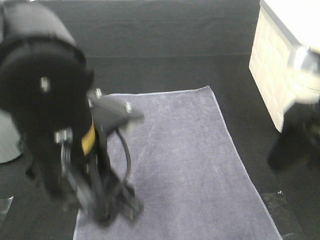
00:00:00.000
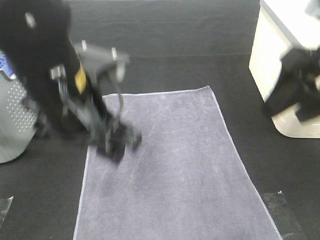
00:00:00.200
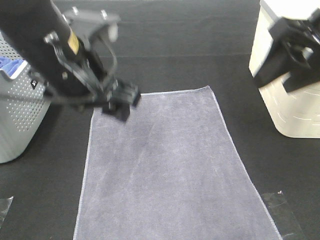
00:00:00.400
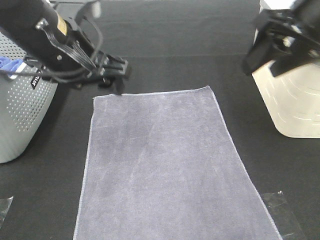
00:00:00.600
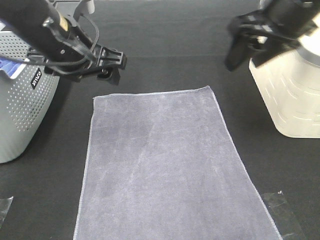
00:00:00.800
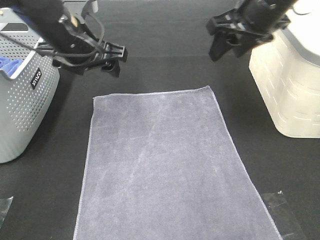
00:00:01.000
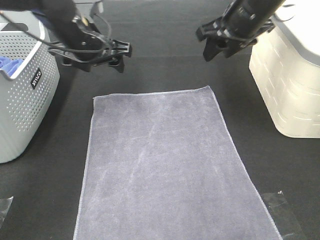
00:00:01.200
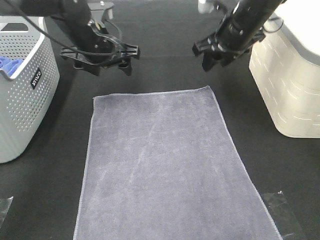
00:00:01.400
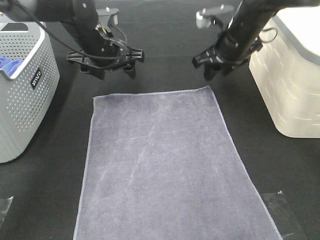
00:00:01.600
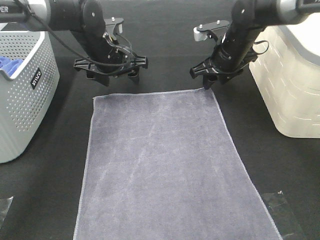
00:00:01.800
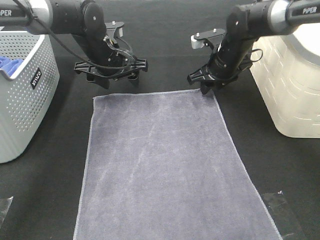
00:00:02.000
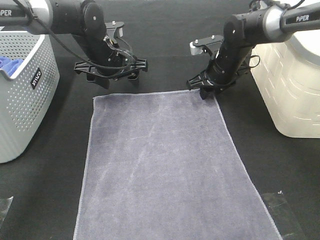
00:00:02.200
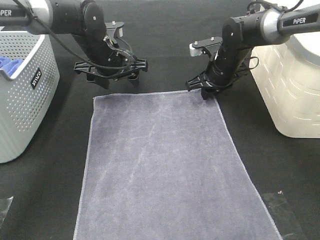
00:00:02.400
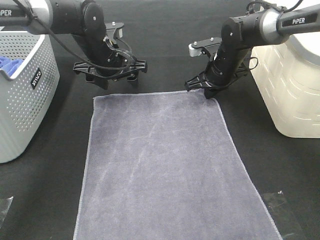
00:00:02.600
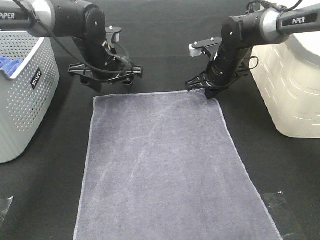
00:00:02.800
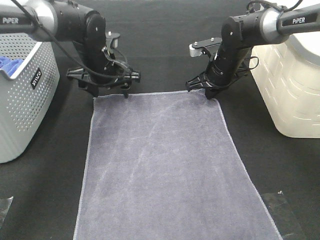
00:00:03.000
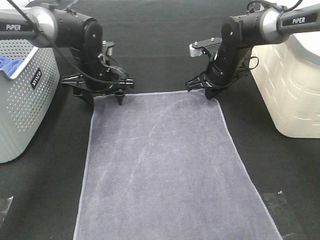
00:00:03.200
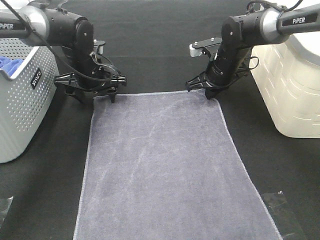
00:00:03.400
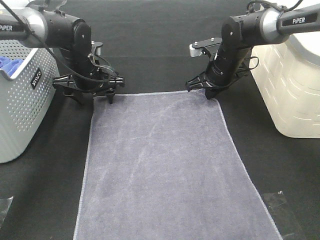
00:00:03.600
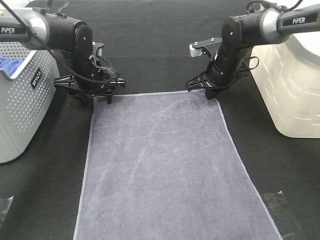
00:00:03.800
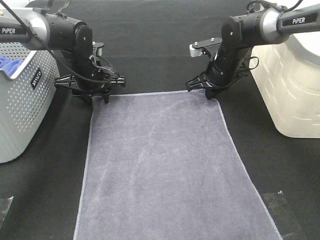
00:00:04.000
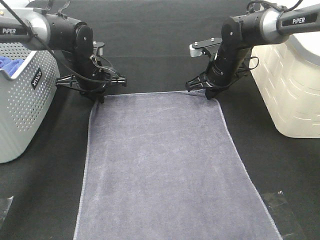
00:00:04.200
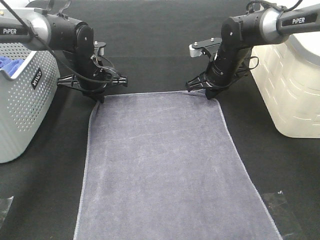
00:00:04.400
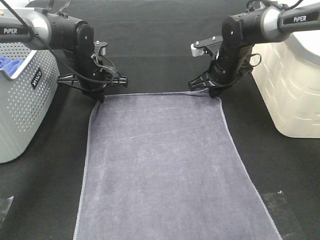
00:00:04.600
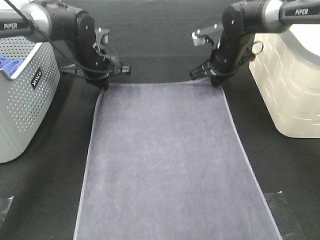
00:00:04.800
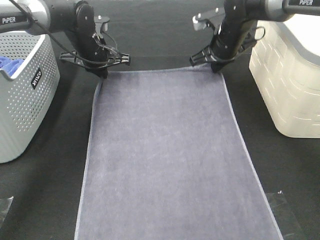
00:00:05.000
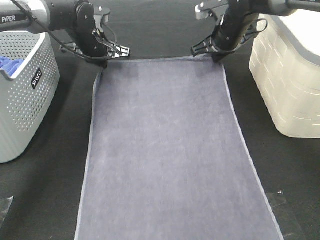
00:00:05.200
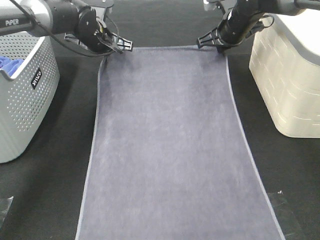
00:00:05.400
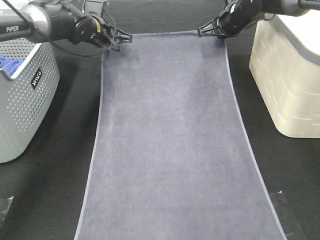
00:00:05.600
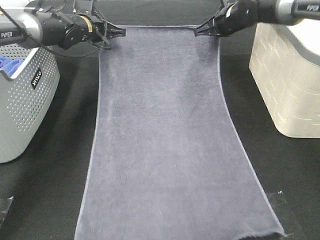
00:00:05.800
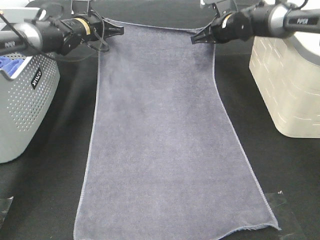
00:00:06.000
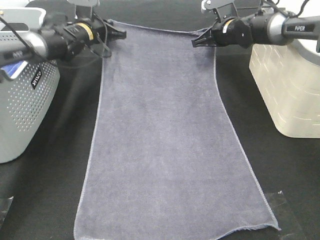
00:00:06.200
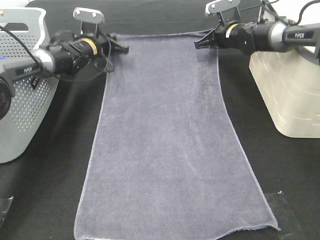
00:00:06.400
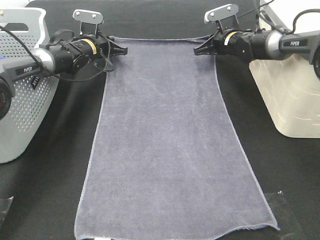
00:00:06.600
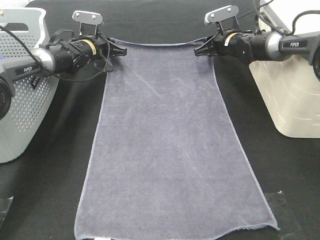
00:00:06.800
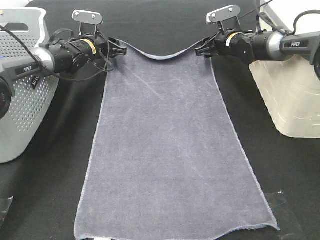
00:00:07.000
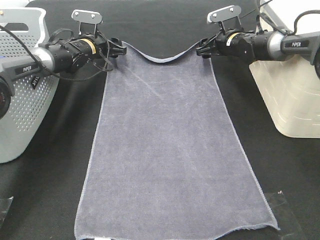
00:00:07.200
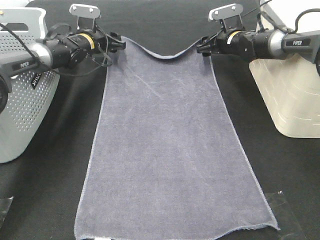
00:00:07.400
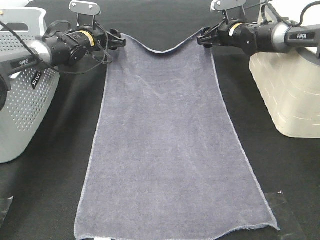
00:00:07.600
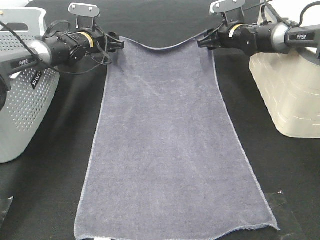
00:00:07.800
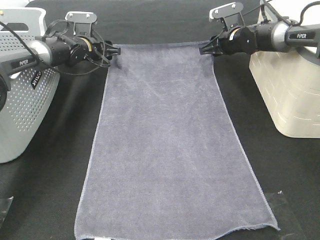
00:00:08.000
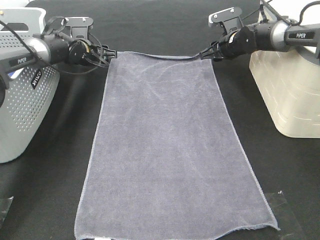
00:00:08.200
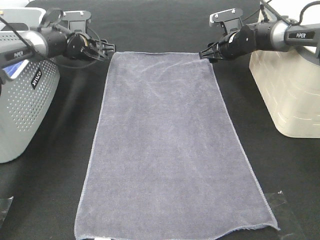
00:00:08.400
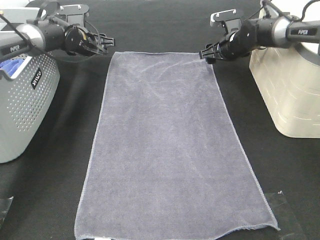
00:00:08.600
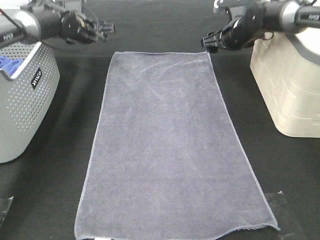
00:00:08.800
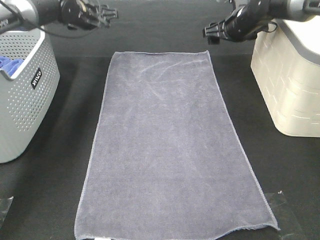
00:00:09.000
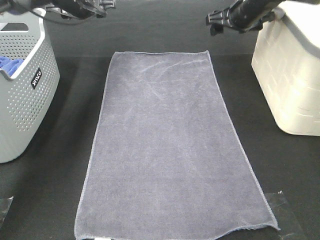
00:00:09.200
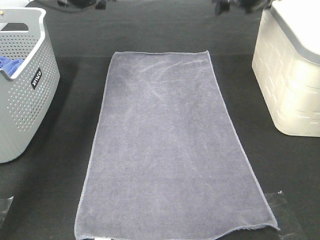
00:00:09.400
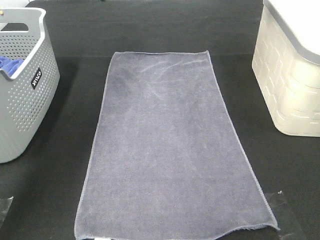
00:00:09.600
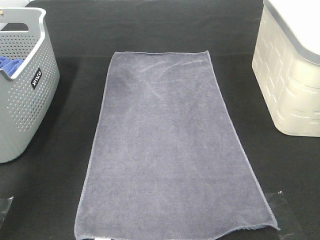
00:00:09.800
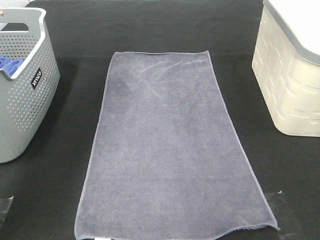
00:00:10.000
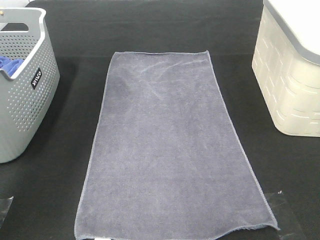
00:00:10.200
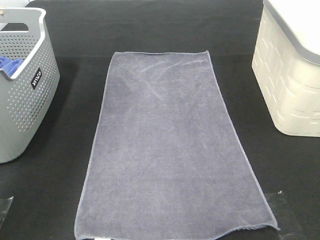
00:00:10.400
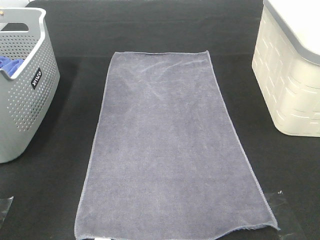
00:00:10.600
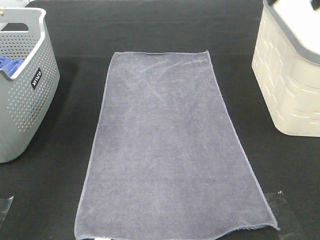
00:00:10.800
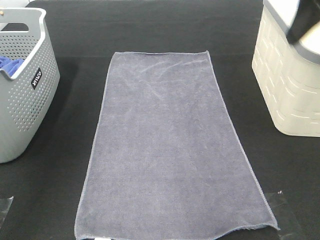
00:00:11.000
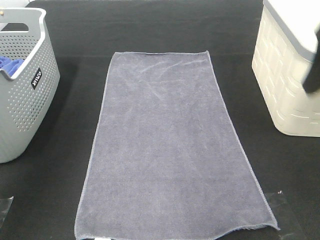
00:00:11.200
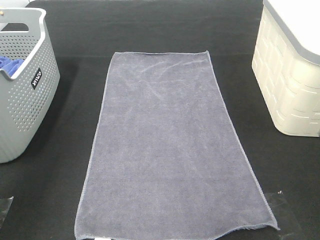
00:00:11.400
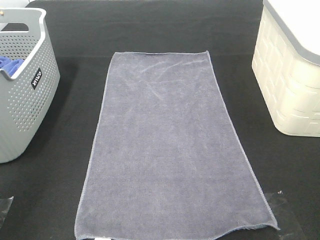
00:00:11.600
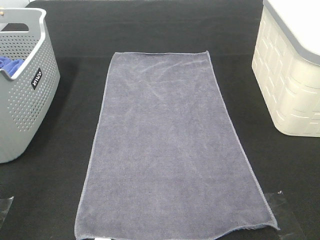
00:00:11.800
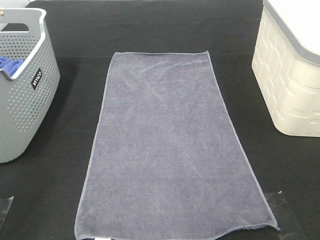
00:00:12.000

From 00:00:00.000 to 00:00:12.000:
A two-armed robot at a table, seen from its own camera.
Task of the whole recording: Remove the towel and place it.
From 00:00:00.000 to 00:00:01.600: The grippers both shift forward by some 25 cm.
From 00:00:01.600 to 00:00:03.000: The right gripper shifts approximately 5 cm downward, and closes up.
From 00:00:03.000 to 00:00:04.400: The left gripper closes up.
From 00:00:04.400 to 00:00:06.000: The grippers both shift forward by some 10 cm.
From 00:00:06.000 to 00:00:07.600: The left gripper opens. The right gripper opens.
From 00:00:07.600 to 00:00:09.000: The right gripper moves upward, roughly 5 cm. Meanwhile the left gripper moves upward, roughly 10 cm.
From 00:00:09.000 to 00:00:10.400: Both grippers move upward and backward, some 25 cm.
From 00:00:10.400 to 00:00:12.000: The left gripper is displaced backward and downward by about 35 cm. The right gripper is displaced backward by roughly 30 cm.

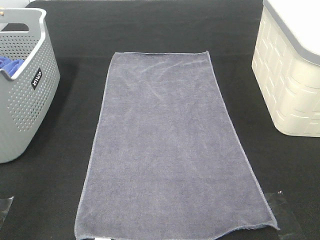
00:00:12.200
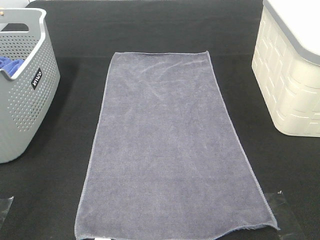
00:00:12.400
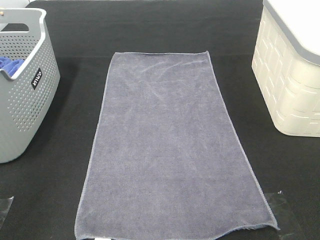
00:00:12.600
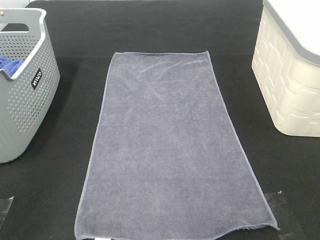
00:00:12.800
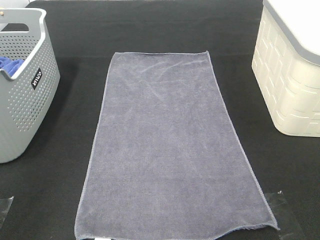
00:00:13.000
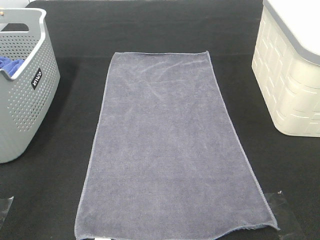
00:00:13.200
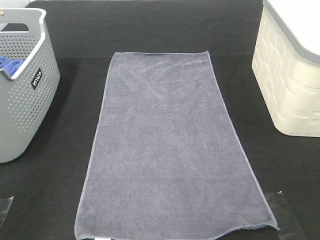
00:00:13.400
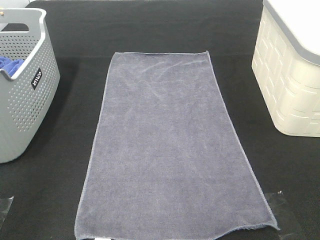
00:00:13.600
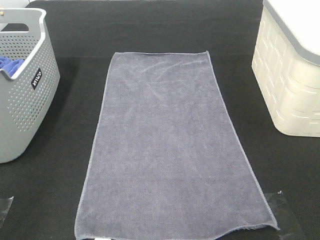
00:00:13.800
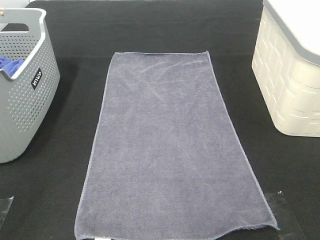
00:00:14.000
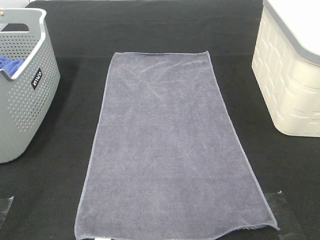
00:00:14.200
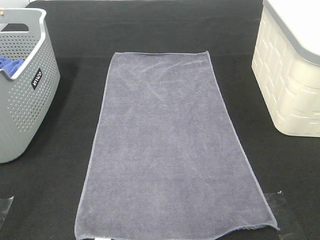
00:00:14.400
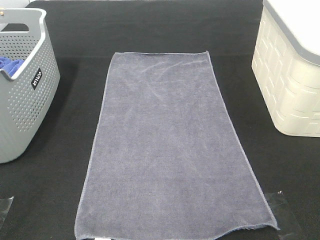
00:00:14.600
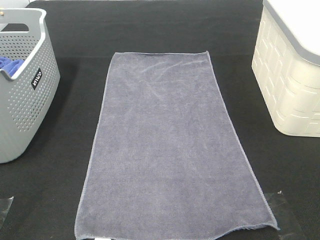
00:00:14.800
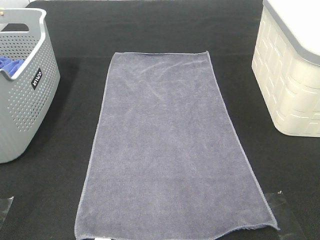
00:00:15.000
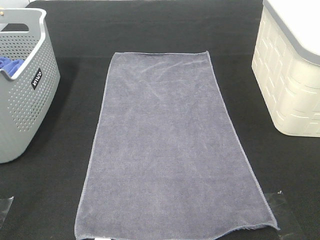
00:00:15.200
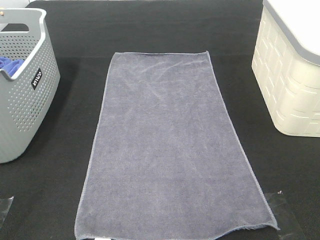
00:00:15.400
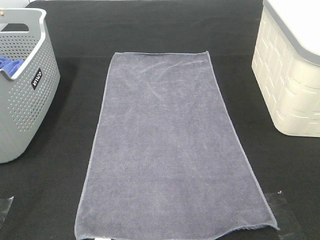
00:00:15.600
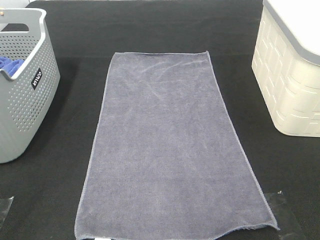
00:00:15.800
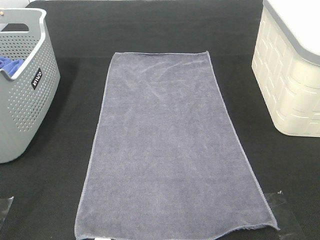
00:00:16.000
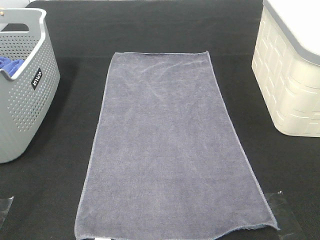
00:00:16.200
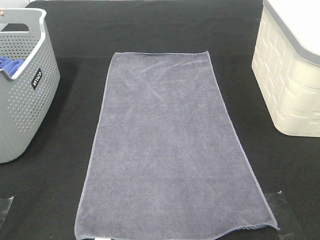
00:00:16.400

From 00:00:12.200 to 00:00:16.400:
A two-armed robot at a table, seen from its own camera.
Task of the whole recording: Remove the towel and place it.
From 00:00:15.000 to 00:00:16.400: Neither gripper changes place.

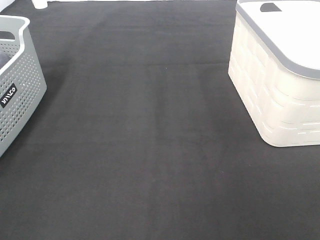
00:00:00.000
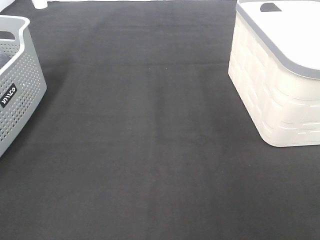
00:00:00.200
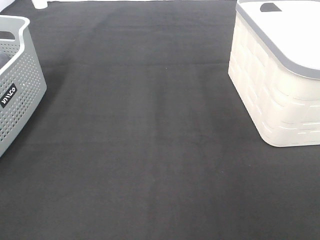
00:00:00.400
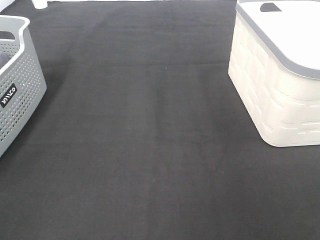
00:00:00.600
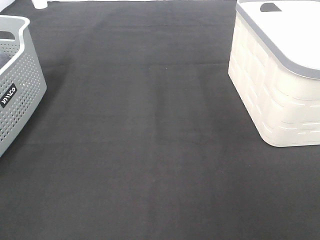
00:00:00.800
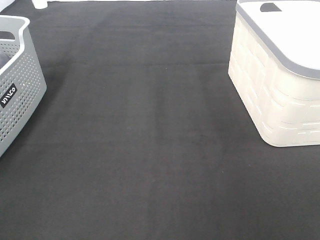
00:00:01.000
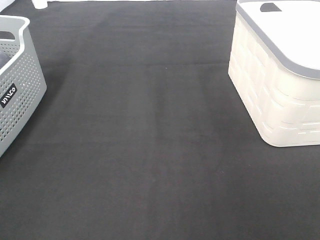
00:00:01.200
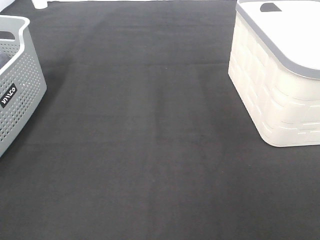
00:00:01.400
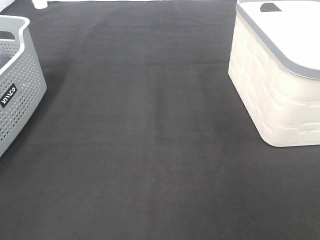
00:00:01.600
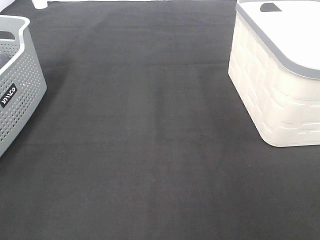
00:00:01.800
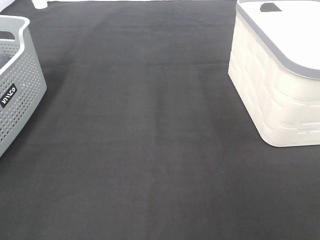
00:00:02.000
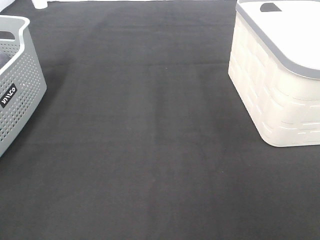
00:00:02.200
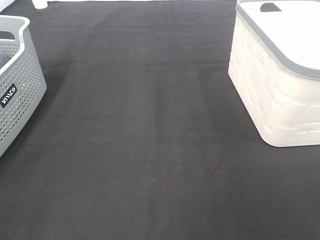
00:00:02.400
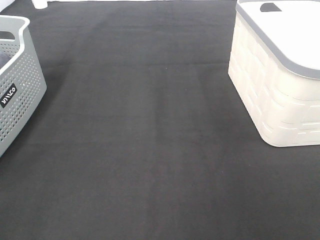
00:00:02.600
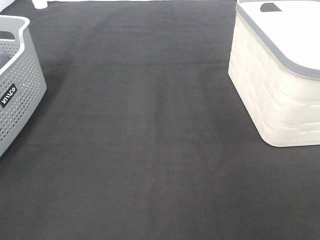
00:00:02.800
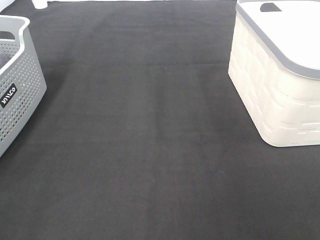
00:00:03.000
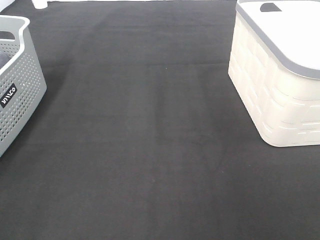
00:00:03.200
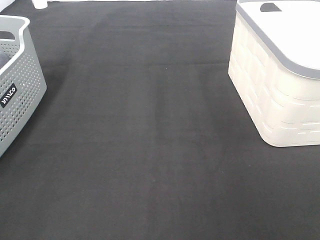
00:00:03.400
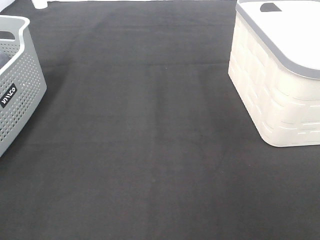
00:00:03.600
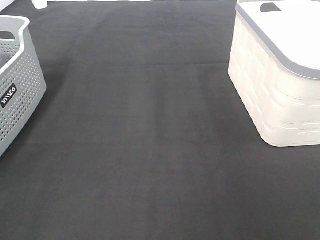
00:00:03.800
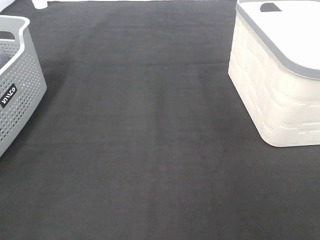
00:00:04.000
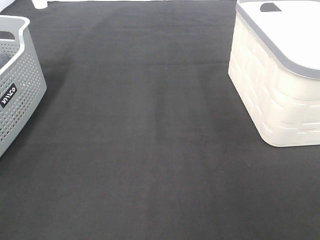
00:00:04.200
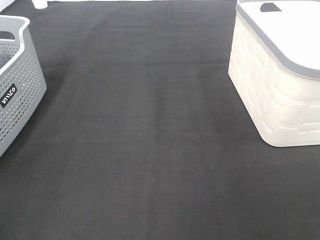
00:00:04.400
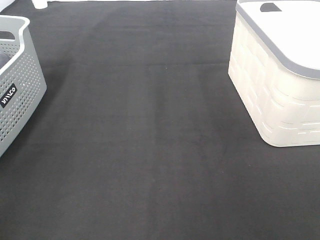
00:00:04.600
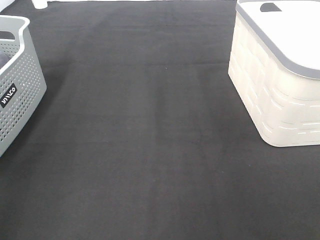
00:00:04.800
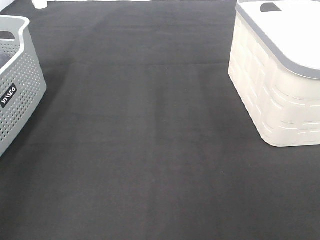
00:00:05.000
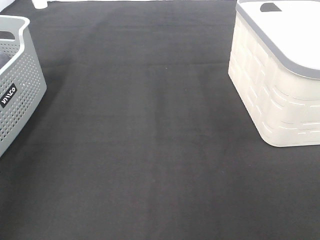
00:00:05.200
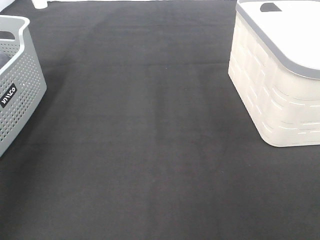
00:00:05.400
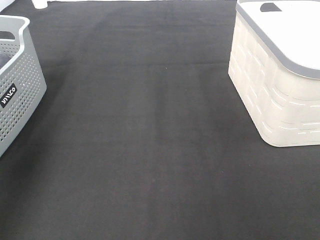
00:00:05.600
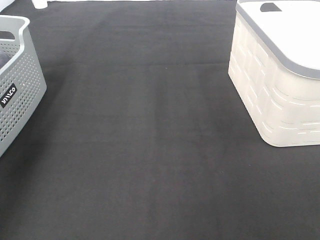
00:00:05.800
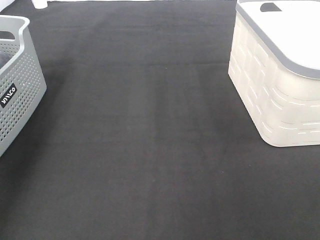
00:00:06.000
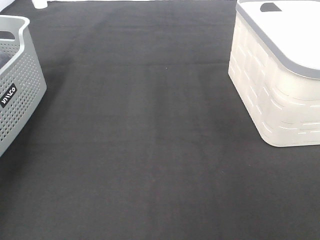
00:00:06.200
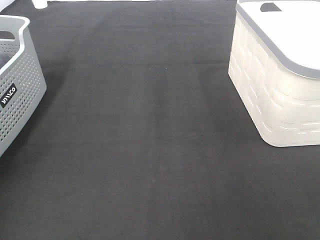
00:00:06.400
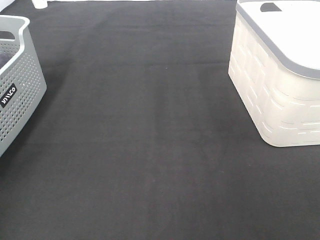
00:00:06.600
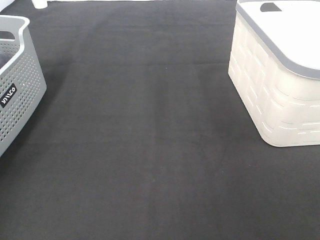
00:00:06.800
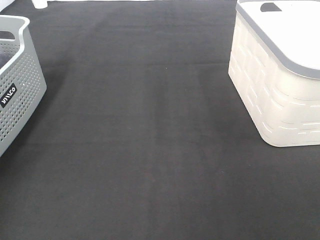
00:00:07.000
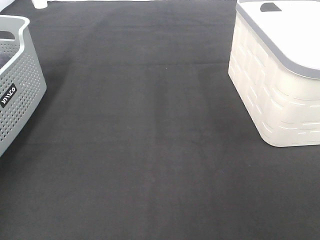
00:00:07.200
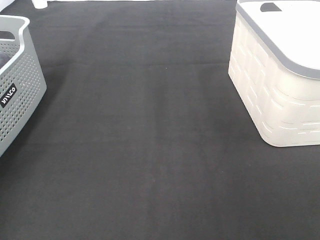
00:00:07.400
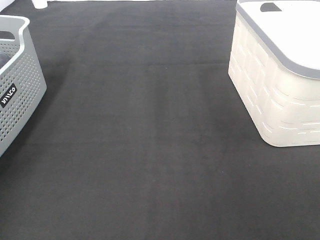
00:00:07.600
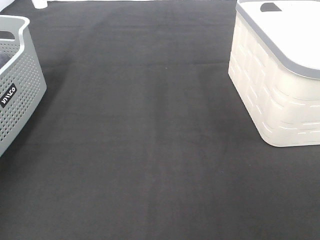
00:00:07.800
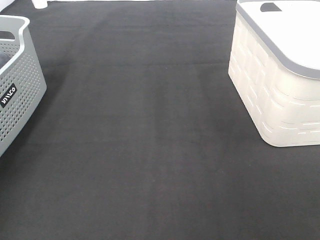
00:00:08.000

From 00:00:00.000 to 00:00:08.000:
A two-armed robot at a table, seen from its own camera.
Task of the whole recording: Remove the towel and place it.
From 00:00:00.000 to 00:00:03.200: Neither gripper changes place.
